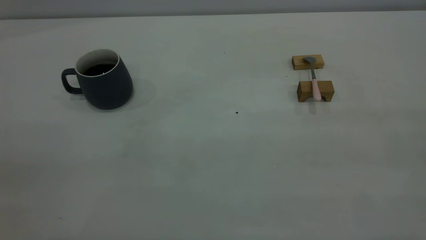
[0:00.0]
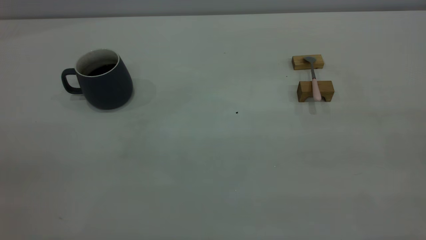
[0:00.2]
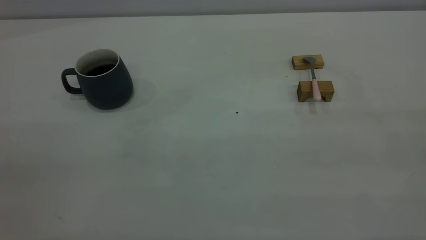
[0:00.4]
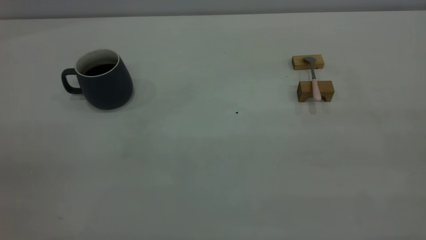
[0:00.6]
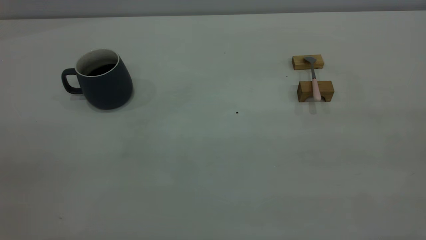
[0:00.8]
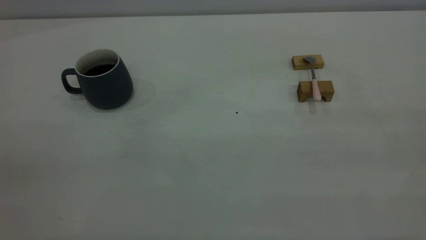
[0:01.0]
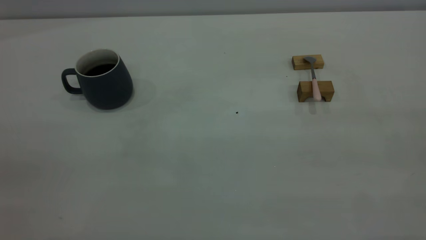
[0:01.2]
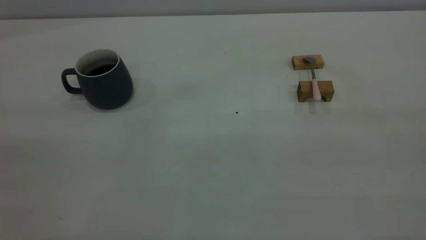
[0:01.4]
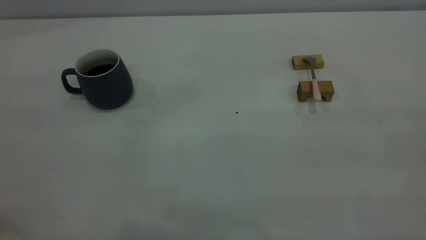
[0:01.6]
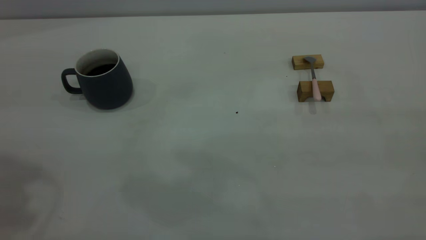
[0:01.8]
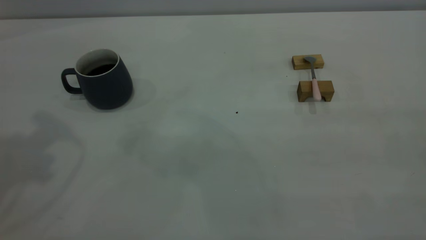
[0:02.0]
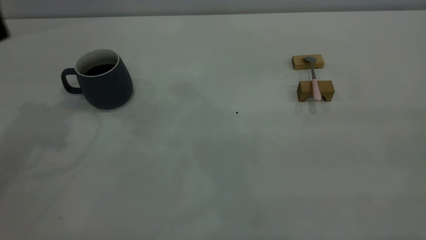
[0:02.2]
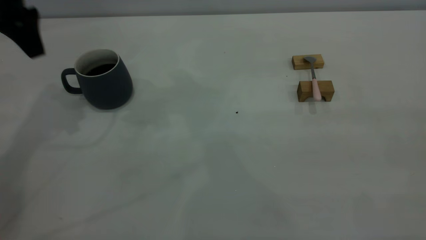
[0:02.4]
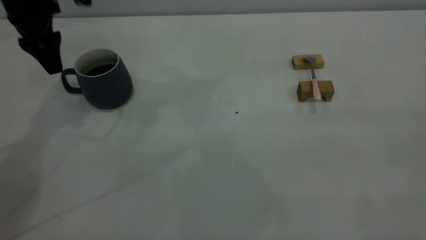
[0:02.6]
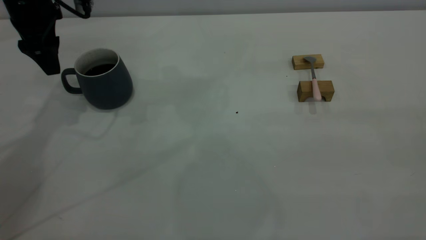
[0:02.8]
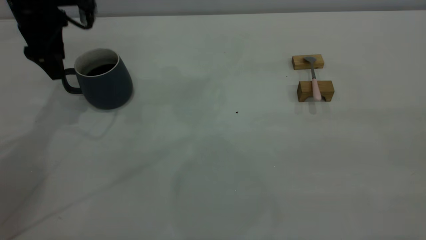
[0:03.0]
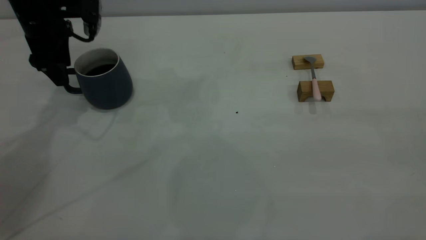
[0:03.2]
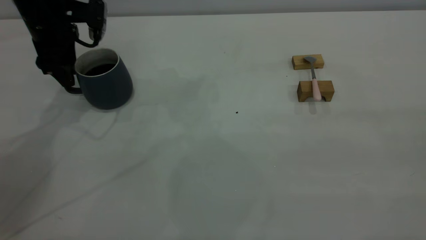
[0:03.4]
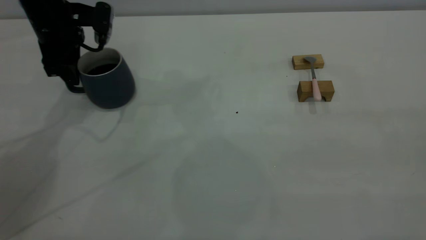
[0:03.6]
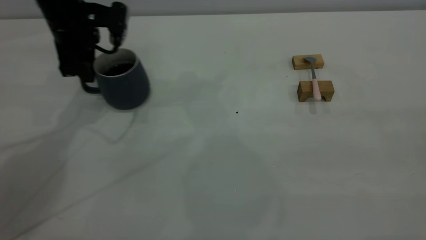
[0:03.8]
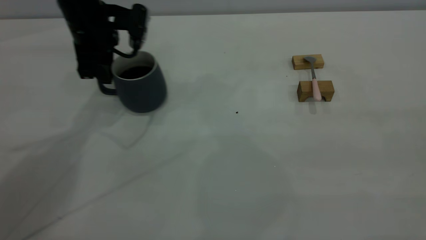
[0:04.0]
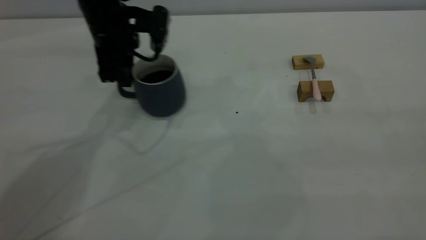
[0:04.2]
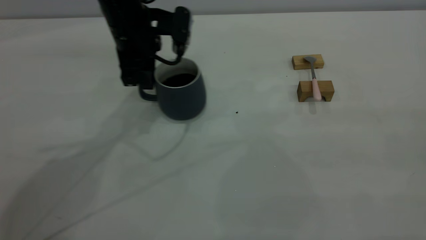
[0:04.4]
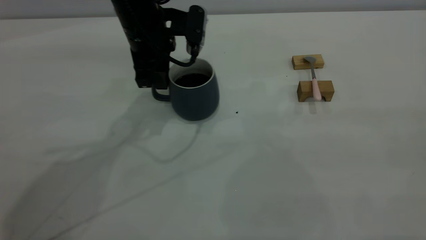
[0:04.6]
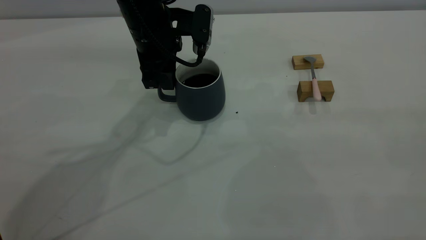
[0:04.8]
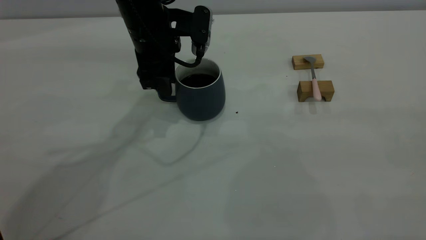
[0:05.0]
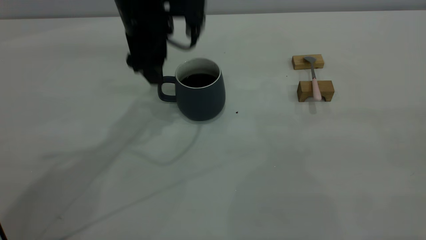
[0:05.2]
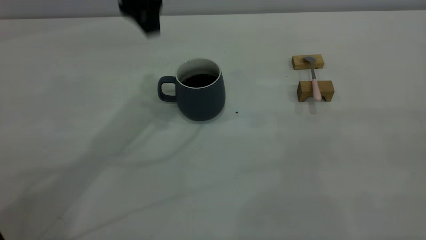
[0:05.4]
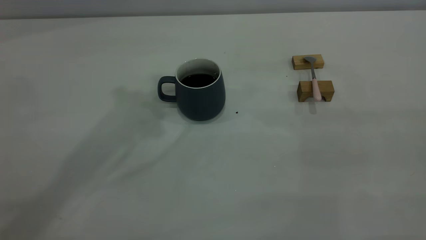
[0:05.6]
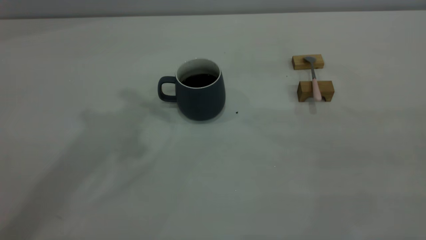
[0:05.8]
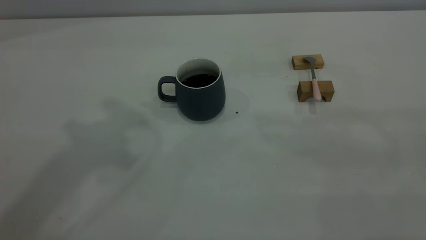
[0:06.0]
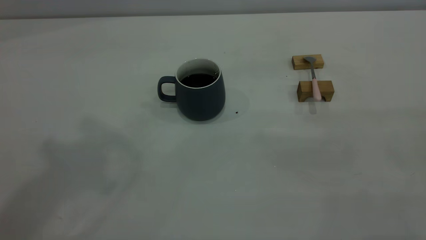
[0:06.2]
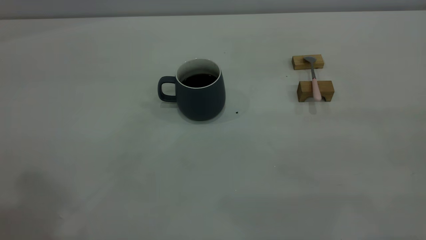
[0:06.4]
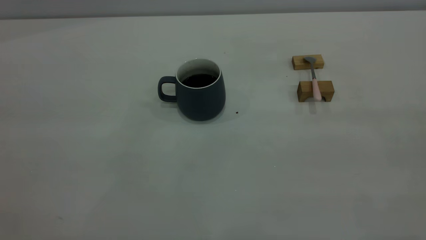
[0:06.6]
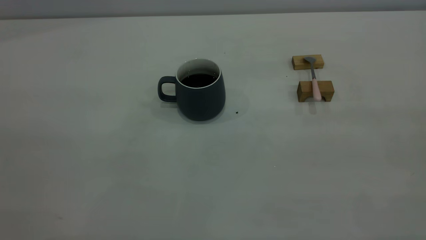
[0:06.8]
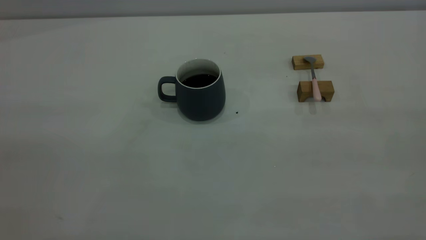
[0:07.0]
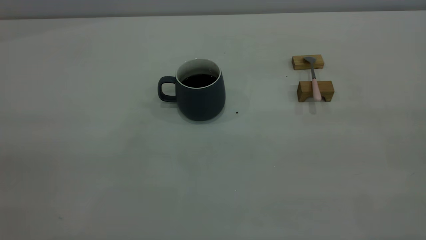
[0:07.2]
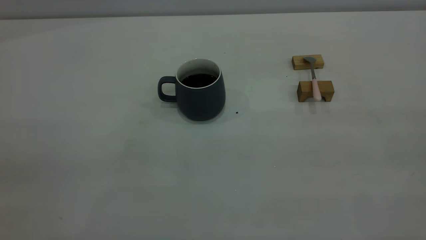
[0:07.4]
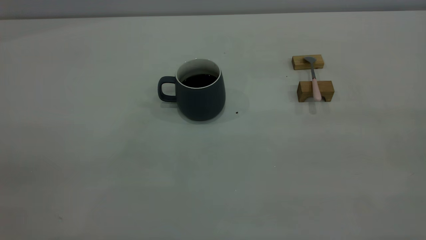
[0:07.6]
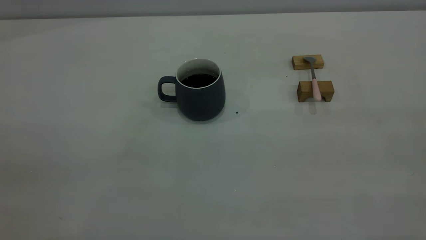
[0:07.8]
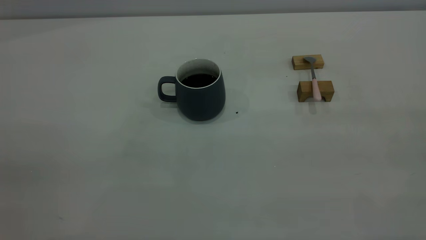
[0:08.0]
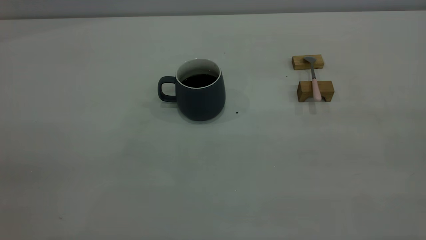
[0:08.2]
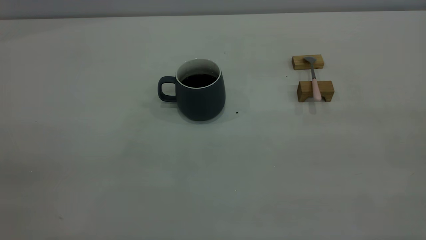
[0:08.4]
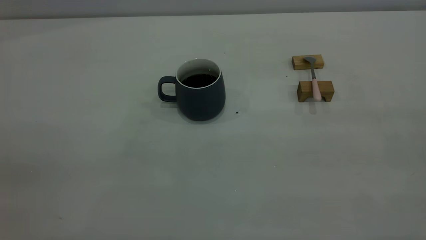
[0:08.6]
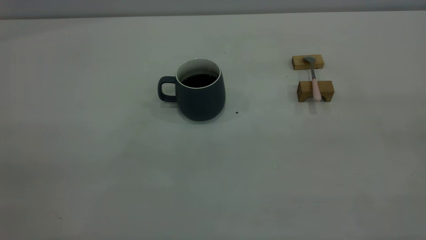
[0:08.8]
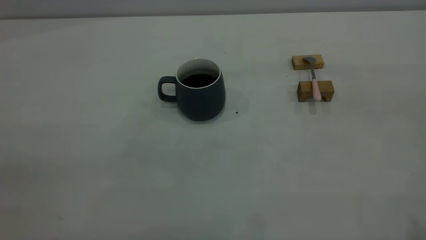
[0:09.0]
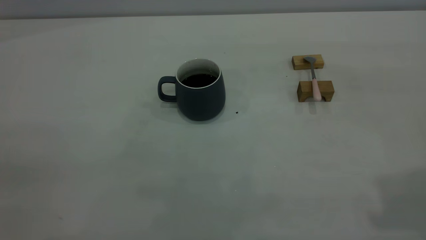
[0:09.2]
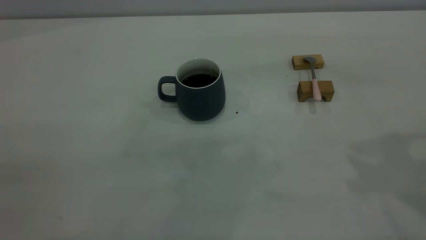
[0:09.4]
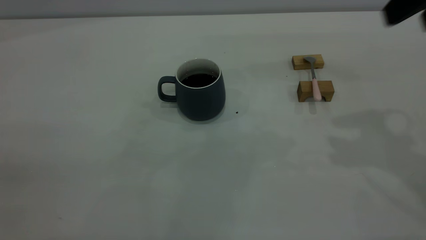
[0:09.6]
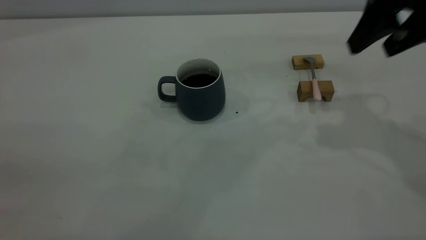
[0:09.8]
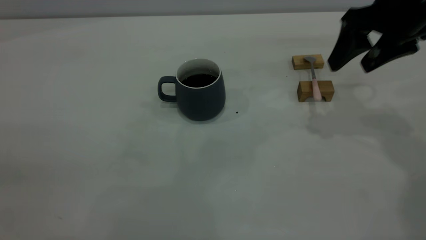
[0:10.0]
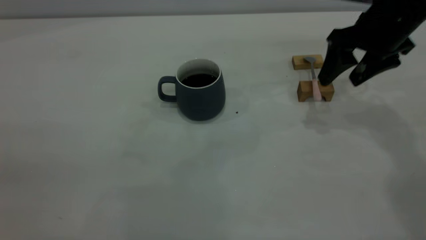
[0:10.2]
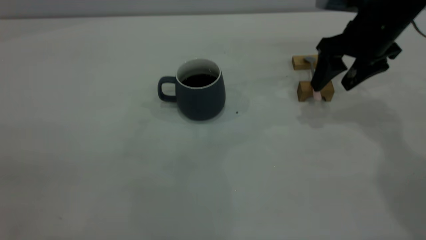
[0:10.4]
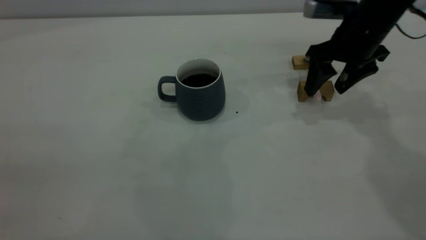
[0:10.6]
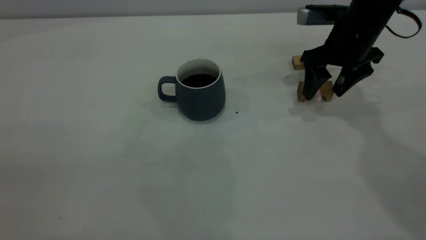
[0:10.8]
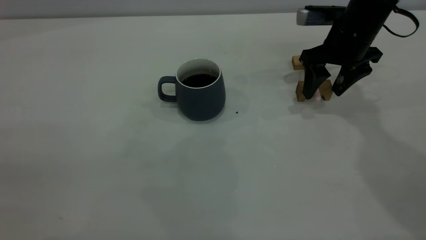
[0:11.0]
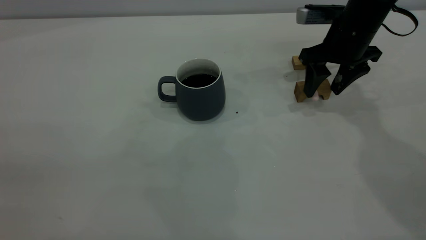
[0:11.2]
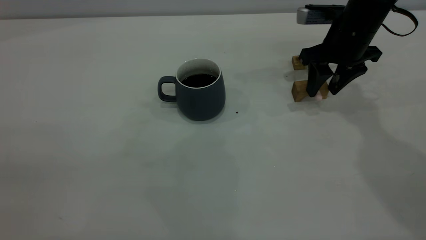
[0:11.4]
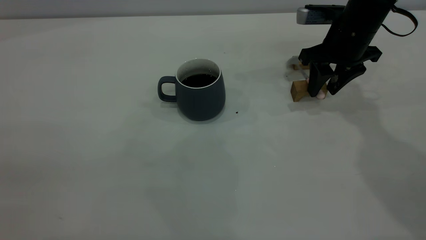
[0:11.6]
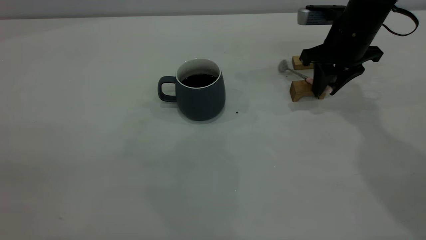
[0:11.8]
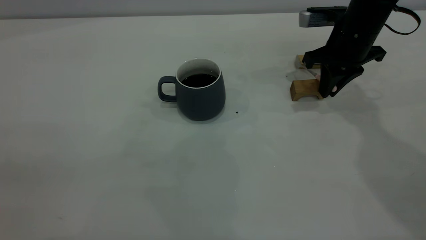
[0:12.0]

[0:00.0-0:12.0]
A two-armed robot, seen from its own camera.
Step, 0:00.0 to 0:05.2: Move the cup with coffee to the center of view.
0:01.6 to 0:03.0: The left gripper travels forward and downward by about 40 cm, and opens up.
0:03.0 to 0:04.4: The left gripper goes roughly 15 cm to the right, and closes up.
0:04.4 to 0:06.0: The left gripper moves upward and backward, about 35 cm, and opens and closes again.
0:09.0 to 0:10.4: The right gripper is displaced forward and downward by approximately 40 cm.
0:10.4 to 0:12.0: The right gripper closes its fingers.

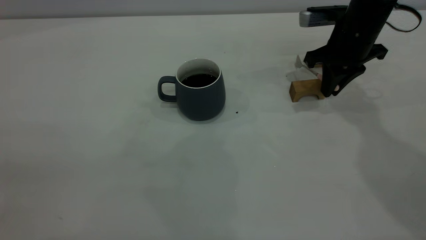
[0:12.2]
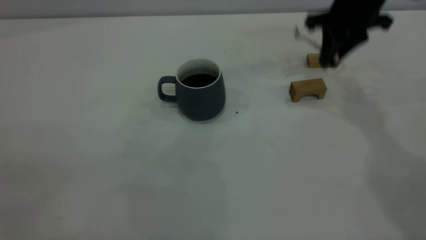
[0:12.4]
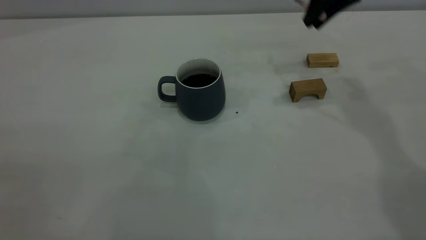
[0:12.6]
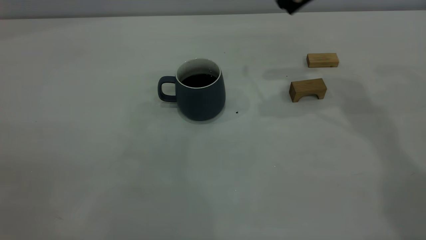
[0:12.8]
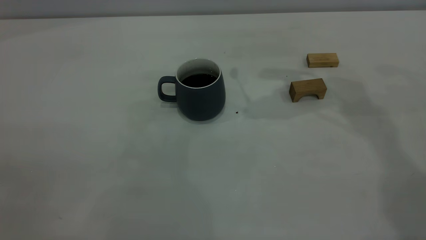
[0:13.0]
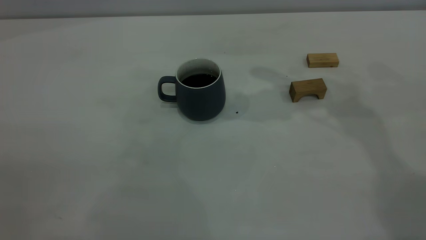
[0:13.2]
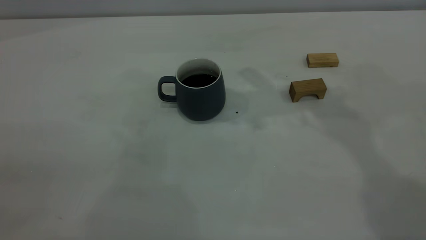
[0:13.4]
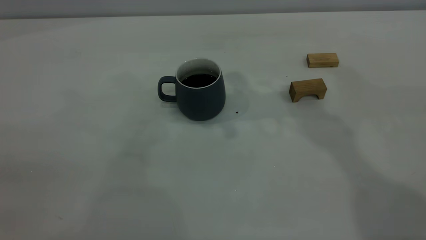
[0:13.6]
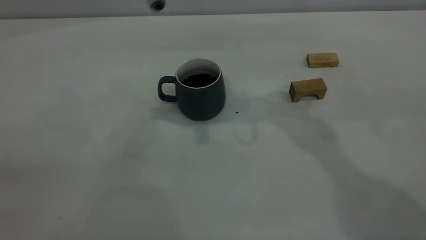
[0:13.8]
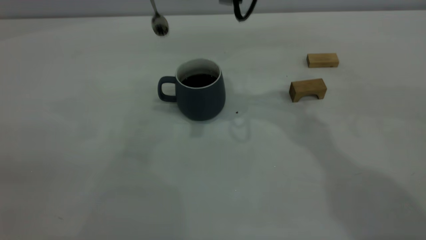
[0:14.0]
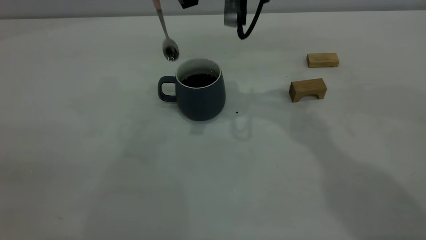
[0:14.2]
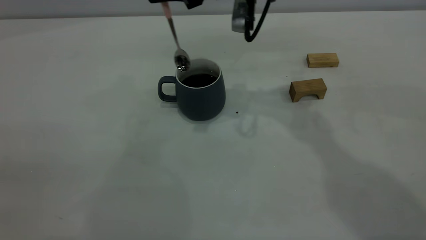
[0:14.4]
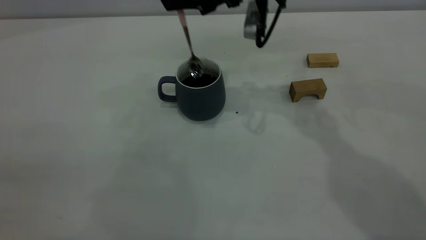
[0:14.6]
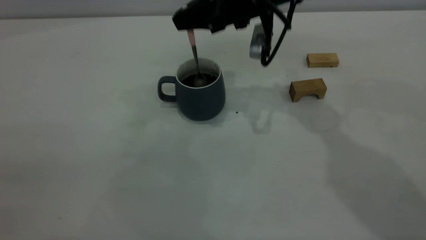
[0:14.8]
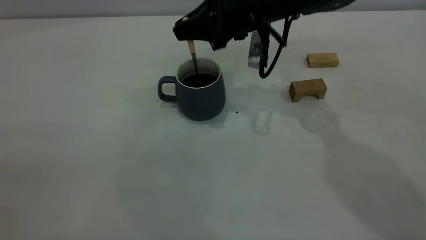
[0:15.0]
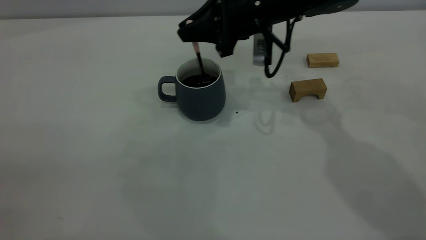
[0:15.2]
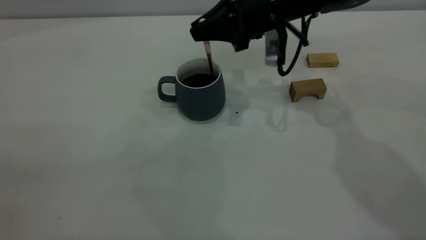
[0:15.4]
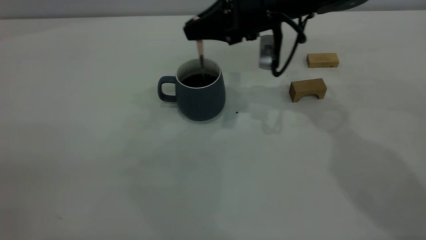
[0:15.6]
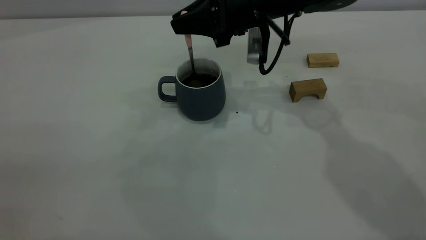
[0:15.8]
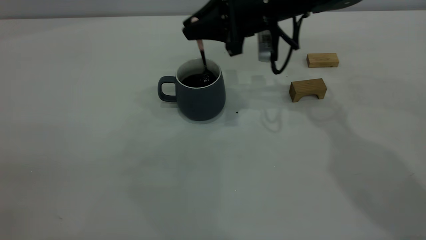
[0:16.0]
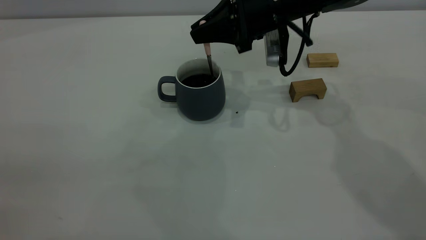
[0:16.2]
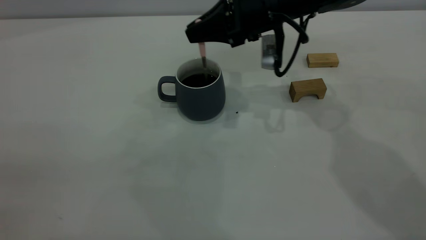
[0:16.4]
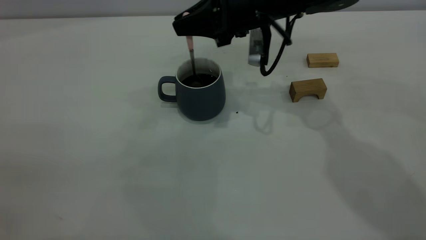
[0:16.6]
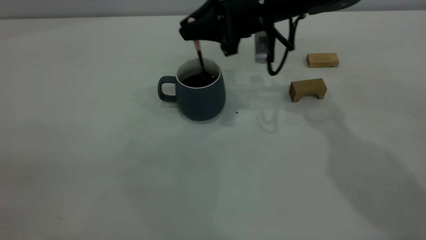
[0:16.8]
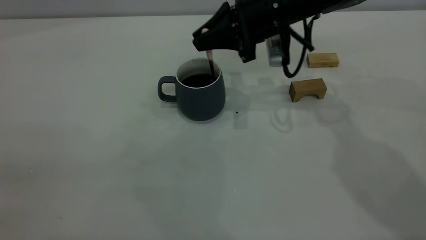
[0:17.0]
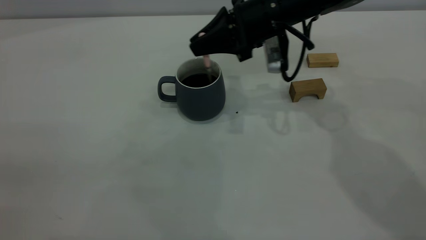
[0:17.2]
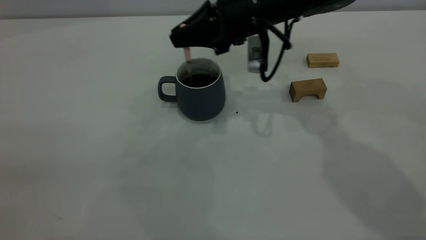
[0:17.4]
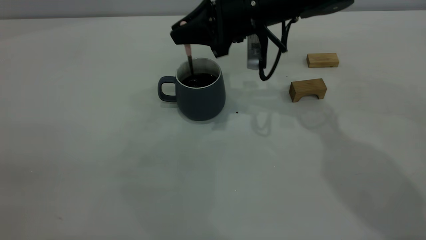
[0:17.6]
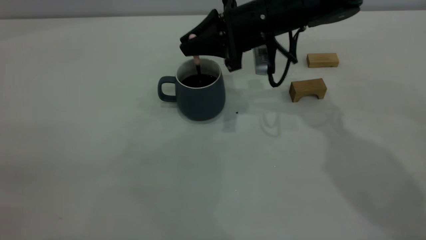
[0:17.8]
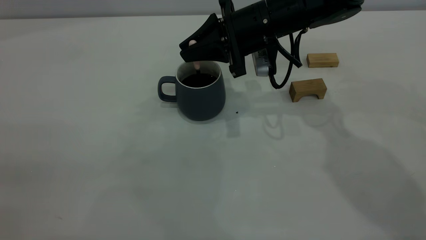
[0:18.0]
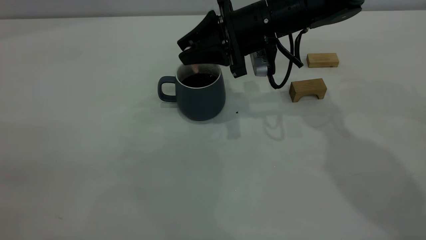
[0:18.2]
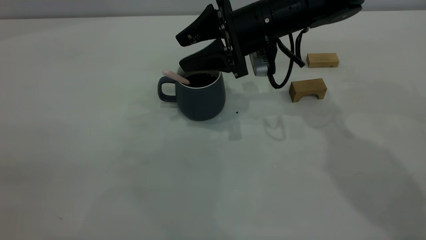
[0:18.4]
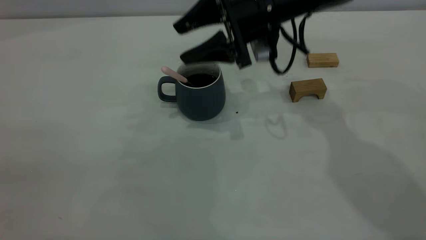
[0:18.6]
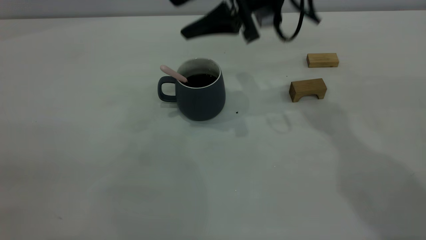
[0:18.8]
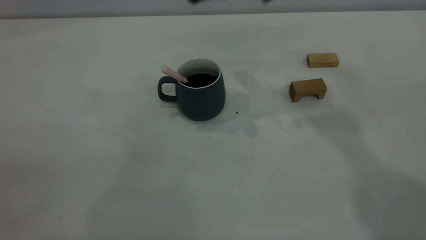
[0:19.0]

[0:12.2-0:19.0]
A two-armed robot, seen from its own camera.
Step, 0:12.6 to 0:18.6: Stir the coffee in the cup.
0:12.2 to 0:13.6: The right gripper heads upward and to the left, covering approximately 25 cm.
0:13.6 to 0:15.0: The right gripper travels downward by roughly 15 cm.
0:15.0 to 0:17.6: There are only small adjustments of the grippers.
0:17.6 to 0:19.0: The right gripper goes about 15 cm upward, and opens its fingers.
